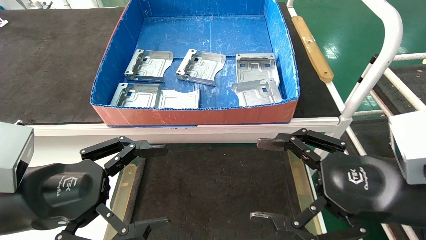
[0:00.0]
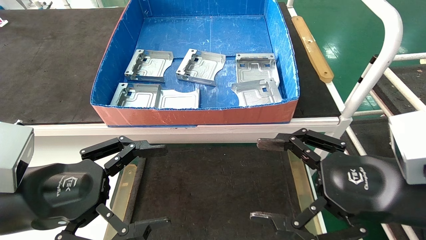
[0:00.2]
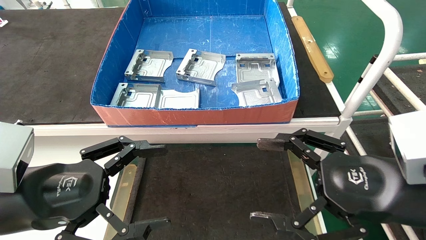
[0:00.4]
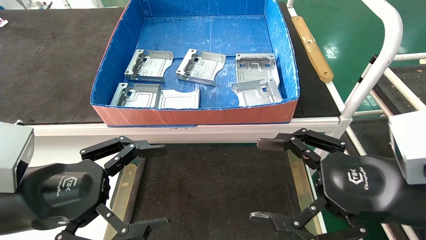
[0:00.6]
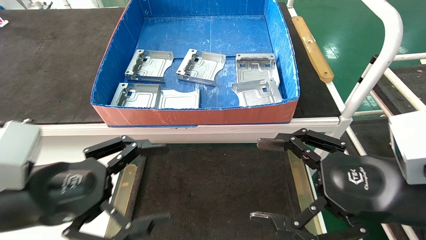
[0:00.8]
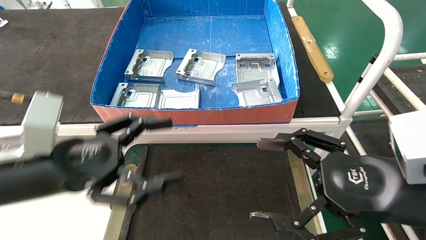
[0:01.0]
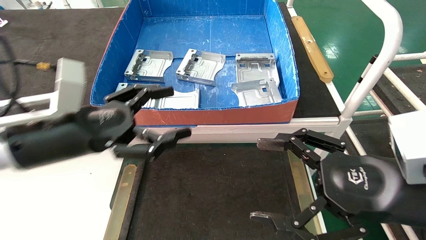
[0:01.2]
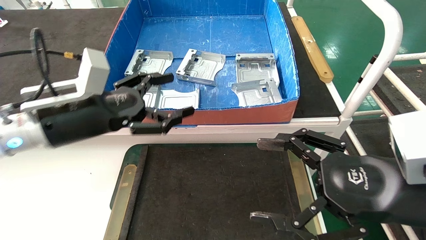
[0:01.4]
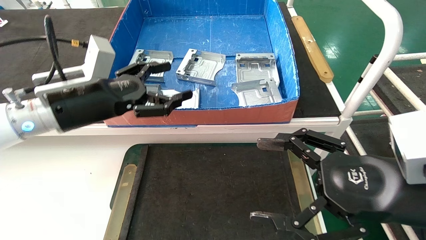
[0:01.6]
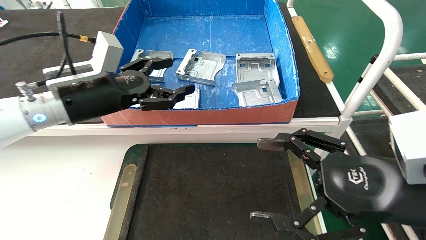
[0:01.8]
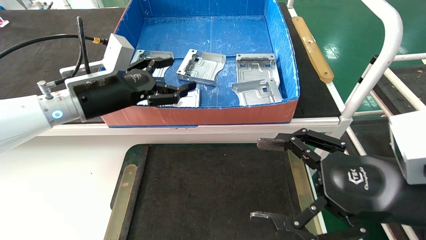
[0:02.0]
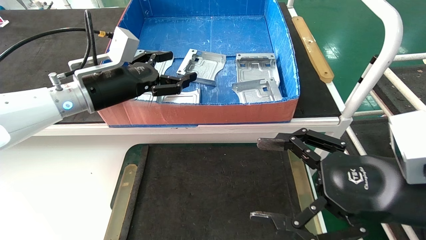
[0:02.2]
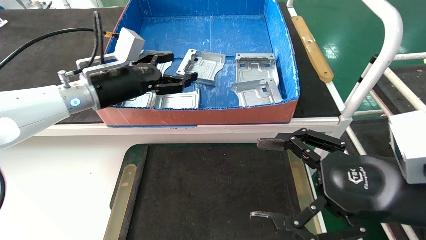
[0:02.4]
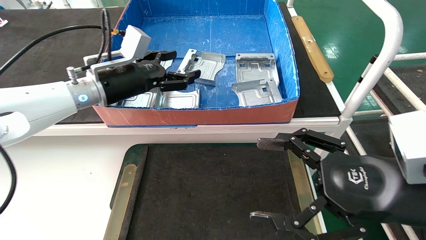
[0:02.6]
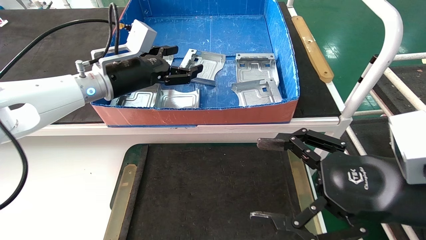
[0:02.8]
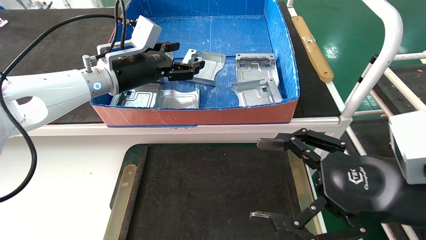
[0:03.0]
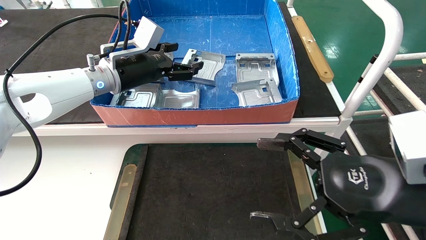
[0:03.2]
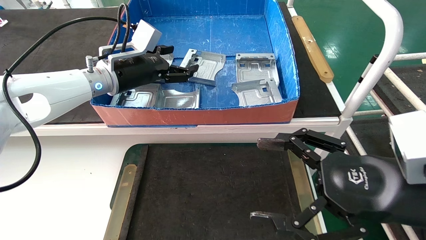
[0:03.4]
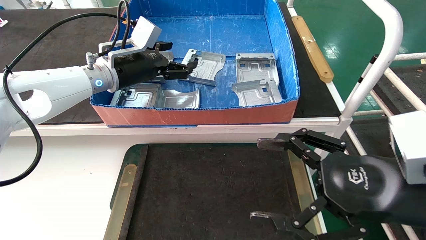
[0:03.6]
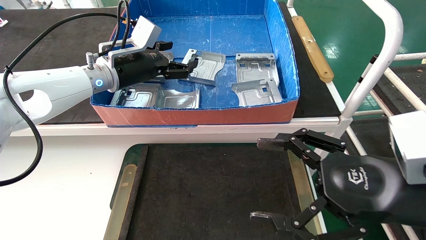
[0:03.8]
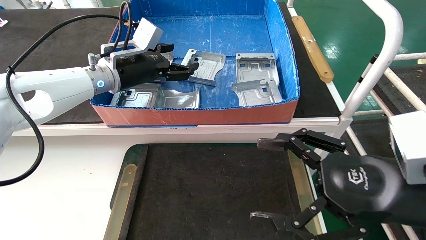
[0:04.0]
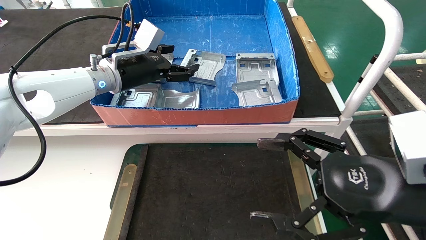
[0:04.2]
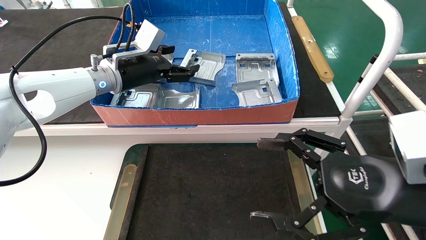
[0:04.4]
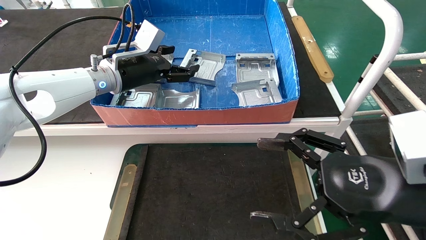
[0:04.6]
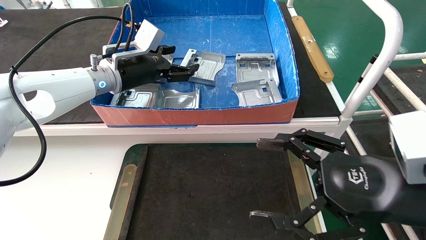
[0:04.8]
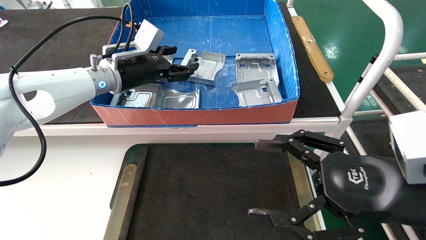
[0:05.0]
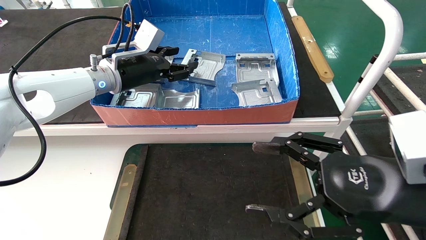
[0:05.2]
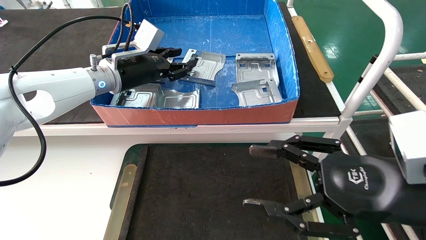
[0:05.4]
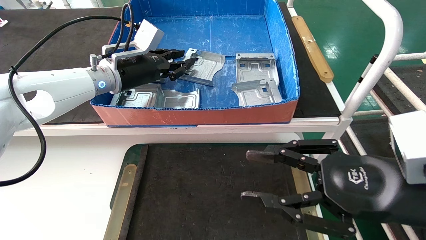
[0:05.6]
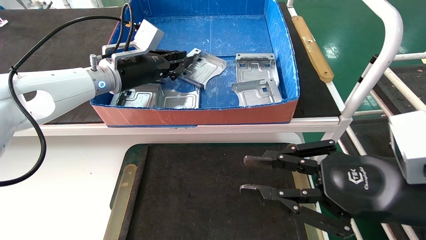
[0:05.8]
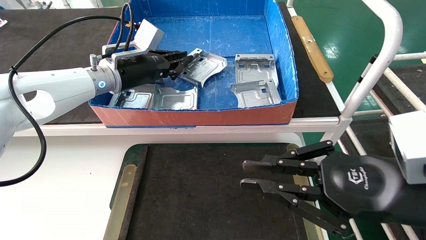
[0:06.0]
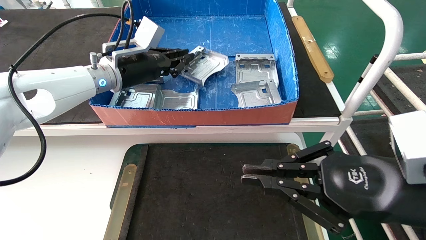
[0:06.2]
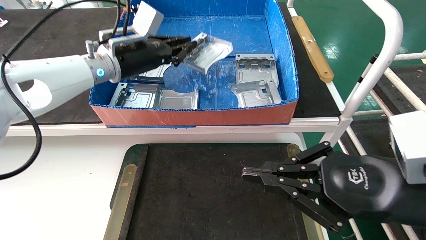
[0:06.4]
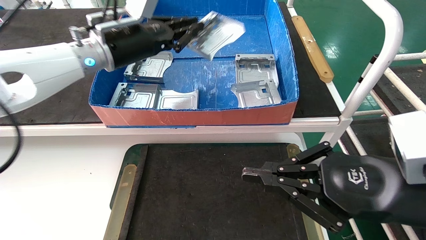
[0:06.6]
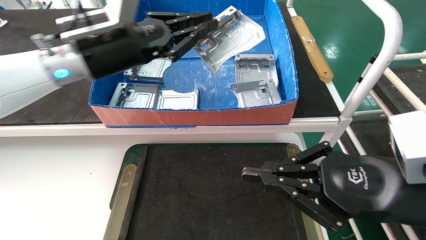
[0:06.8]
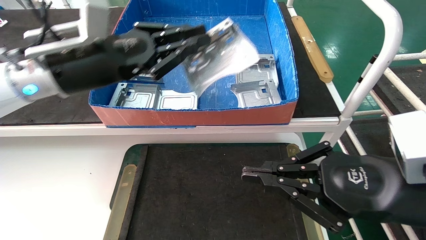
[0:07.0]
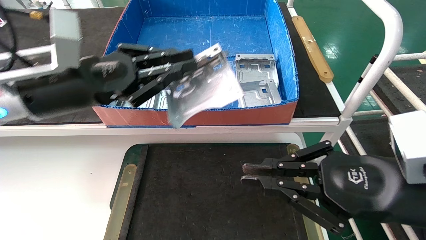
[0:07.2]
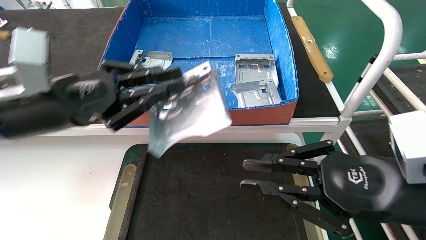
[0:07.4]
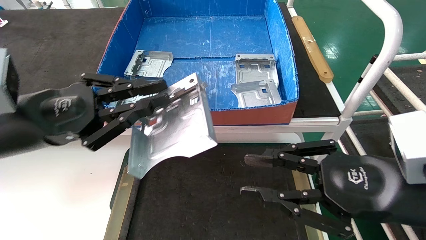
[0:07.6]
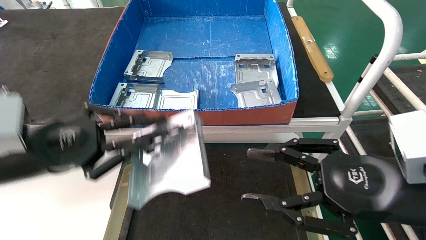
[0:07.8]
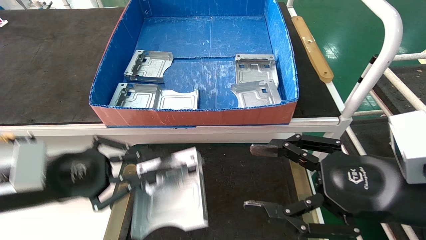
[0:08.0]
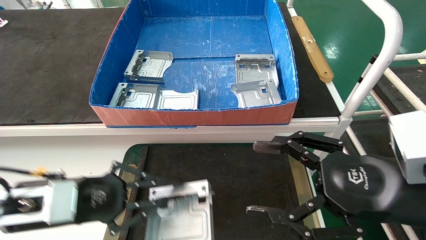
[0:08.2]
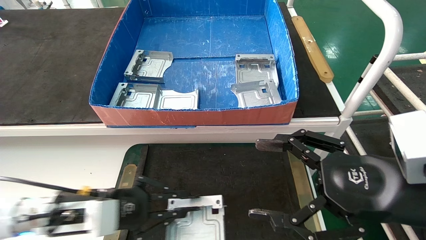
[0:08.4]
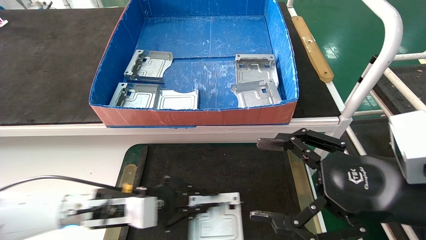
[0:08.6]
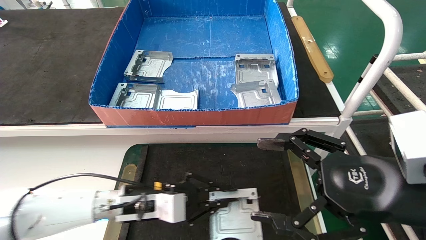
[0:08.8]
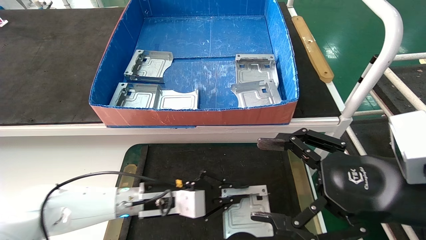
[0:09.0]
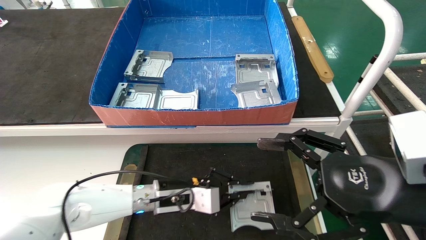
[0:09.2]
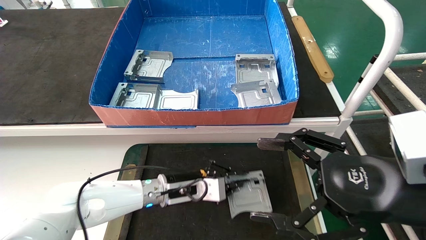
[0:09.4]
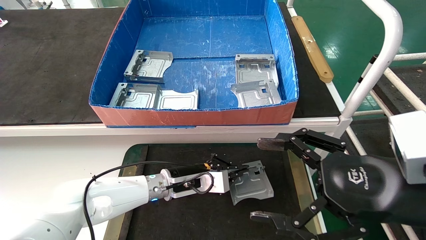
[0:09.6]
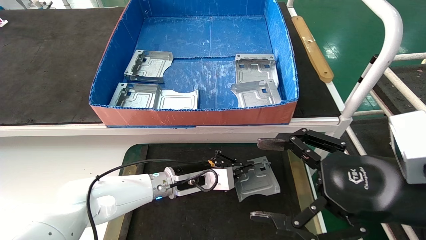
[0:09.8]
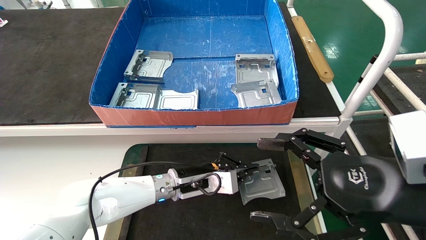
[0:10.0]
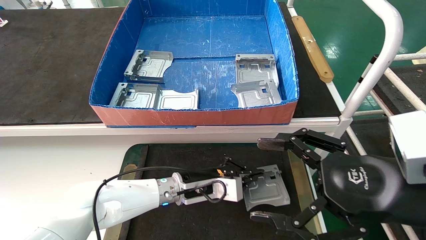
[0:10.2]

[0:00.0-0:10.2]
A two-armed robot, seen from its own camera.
Task of the whole recording: take the accessories out of the box and place them on the table.
Step, 0:01.4 to 0:06.0: Pick up the hard drive bracket from the feeding area.
0:00.0 to 0:01.4: The left gripper travels forward and upward by some 15 cm.
0:01.4 to 0:03.0: The left gripper shifts about 15 cm forward.
0:03.0 to 0:04.4: The grippers move only a little.
0:04.4 to 0:05.8: The left gripper closes, while the right gripper closes up.
0:05.8 to 0:07.2: The right gripper closes its fingers. The left gripper shifts approximately 15 cm backward.
0:07.2 to 0:08.8: The left gripper travels downward by some 25 cm; the right gripper opens its fingers.
0:08.8 to 0:10.2: The left gripper shifts approximately 10 cm to the right and forward.

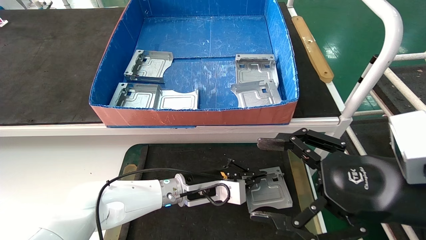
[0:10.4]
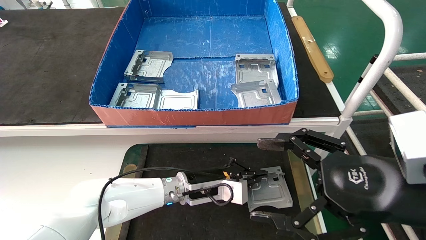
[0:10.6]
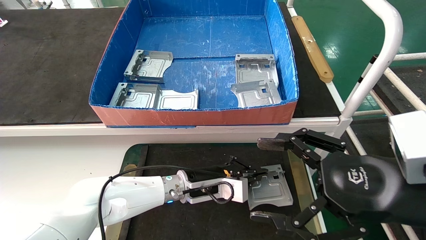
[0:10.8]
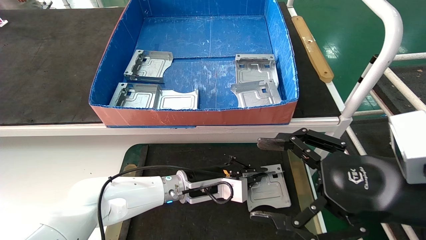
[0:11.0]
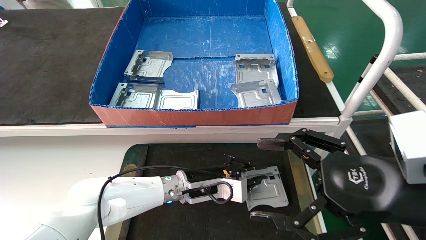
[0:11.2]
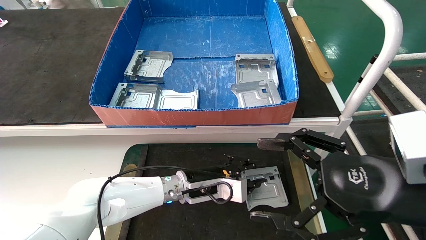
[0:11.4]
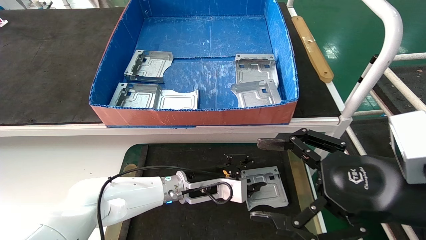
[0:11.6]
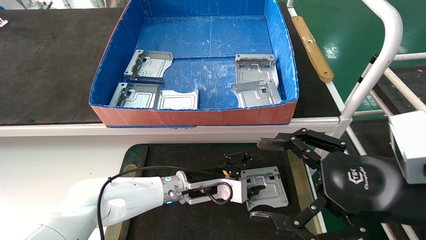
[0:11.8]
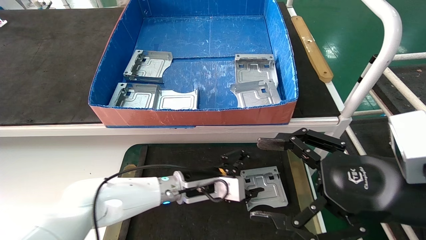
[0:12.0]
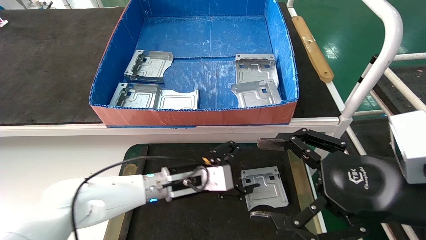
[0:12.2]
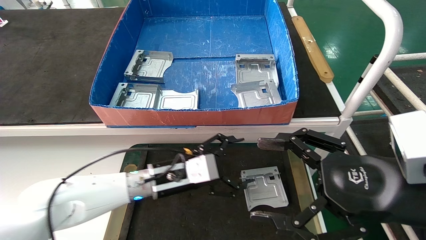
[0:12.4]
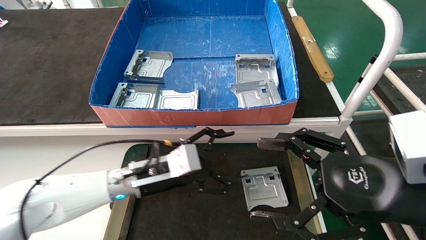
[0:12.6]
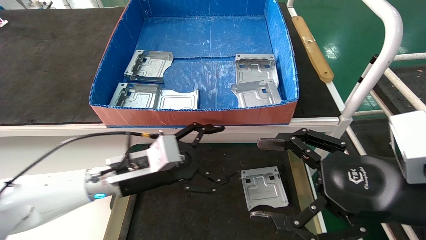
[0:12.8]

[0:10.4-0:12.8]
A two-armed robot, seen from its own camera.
Task of the whole recording: take the accessories out of the box and place them on the table.
0:10.4 to 0:11.6: The left gripper opens up.
0:11.6 to 0:12.8: The left gripper heads to the left, upward and backward, covering roughly 15 cm, and opens its fingers.
